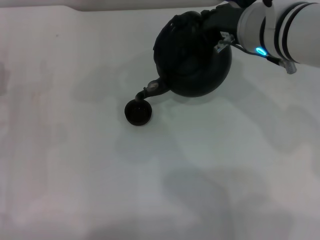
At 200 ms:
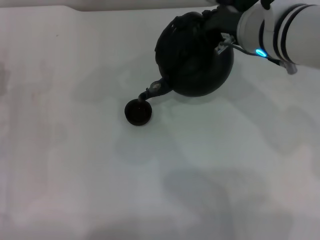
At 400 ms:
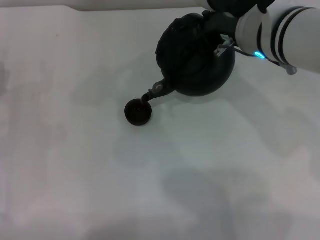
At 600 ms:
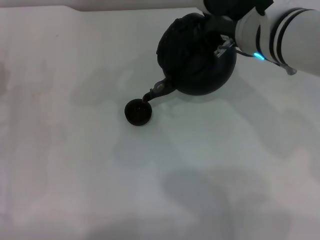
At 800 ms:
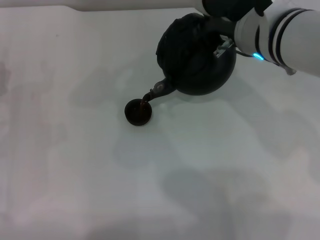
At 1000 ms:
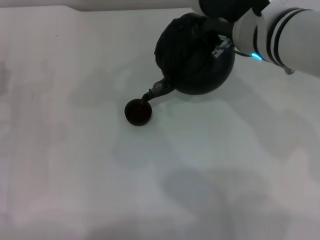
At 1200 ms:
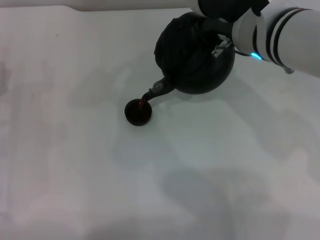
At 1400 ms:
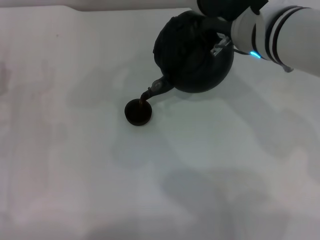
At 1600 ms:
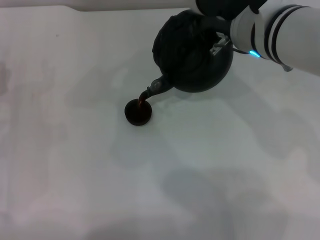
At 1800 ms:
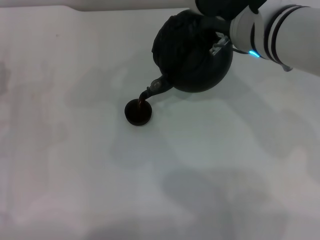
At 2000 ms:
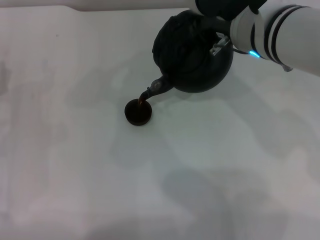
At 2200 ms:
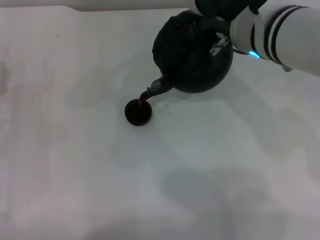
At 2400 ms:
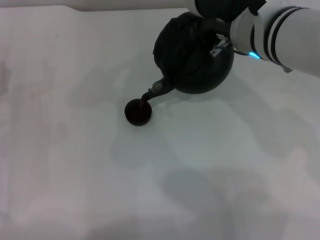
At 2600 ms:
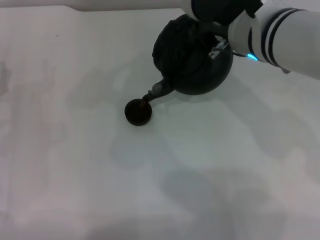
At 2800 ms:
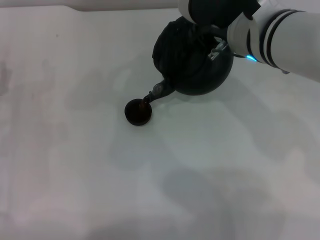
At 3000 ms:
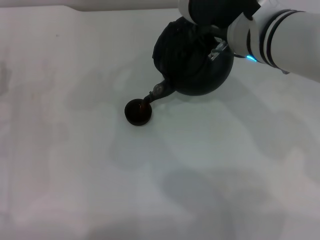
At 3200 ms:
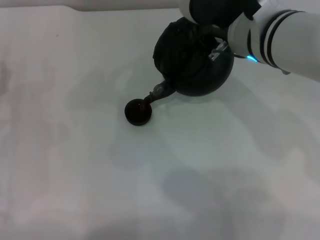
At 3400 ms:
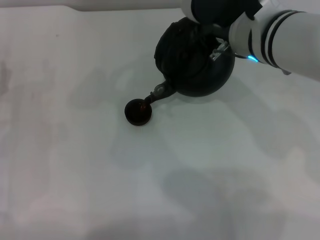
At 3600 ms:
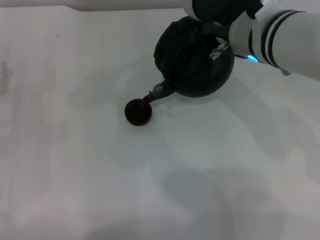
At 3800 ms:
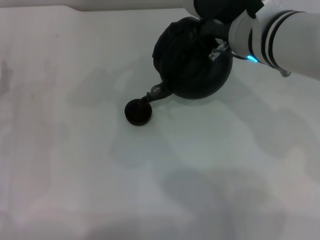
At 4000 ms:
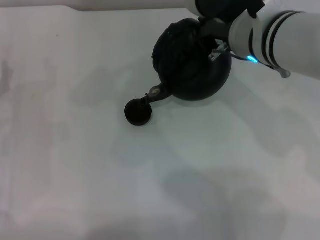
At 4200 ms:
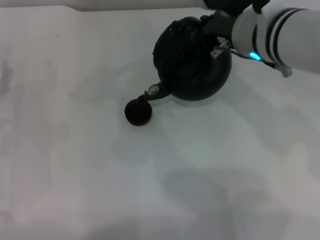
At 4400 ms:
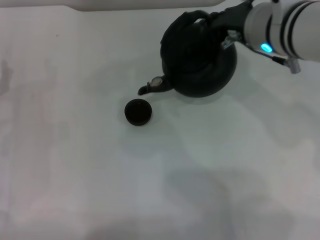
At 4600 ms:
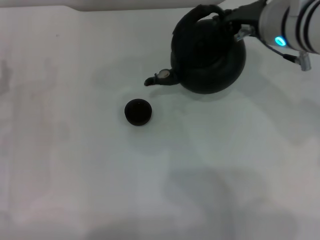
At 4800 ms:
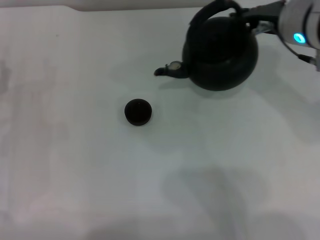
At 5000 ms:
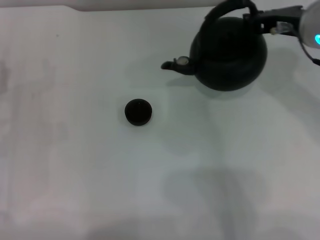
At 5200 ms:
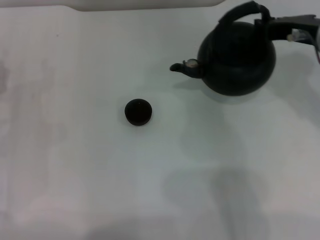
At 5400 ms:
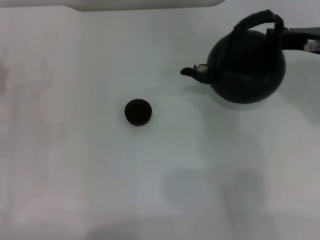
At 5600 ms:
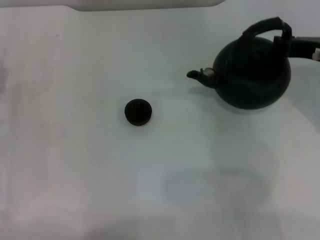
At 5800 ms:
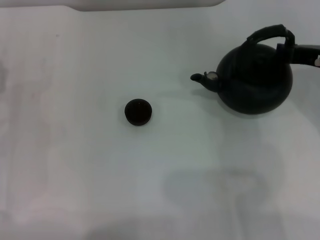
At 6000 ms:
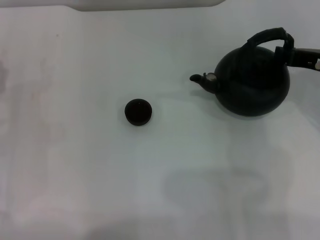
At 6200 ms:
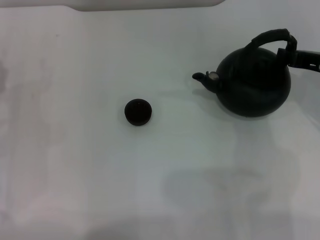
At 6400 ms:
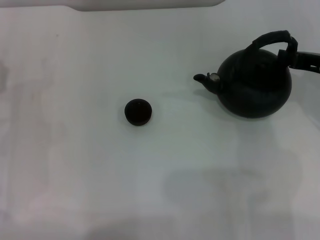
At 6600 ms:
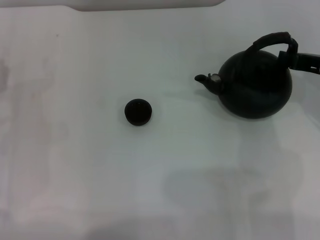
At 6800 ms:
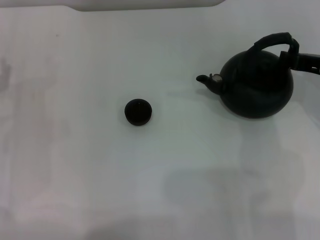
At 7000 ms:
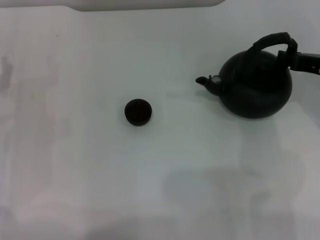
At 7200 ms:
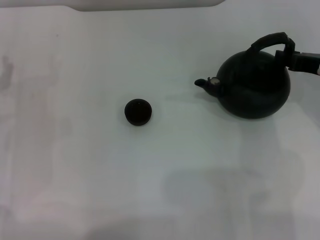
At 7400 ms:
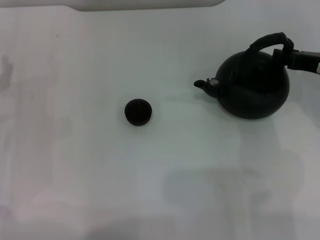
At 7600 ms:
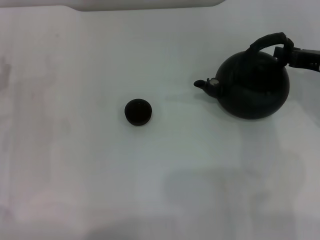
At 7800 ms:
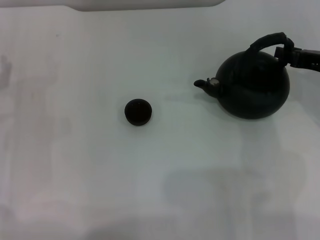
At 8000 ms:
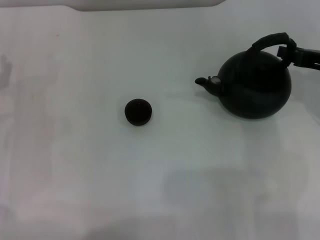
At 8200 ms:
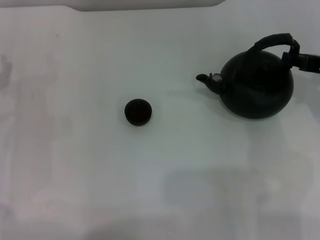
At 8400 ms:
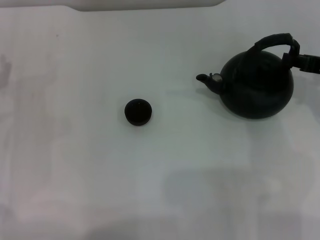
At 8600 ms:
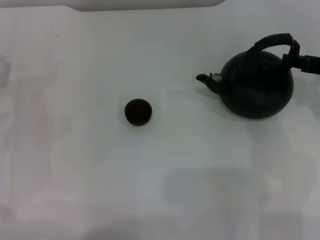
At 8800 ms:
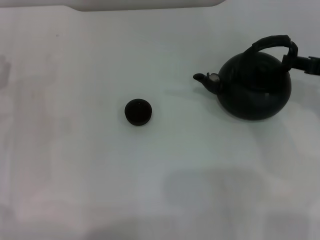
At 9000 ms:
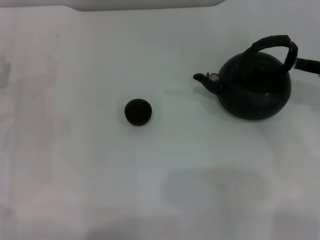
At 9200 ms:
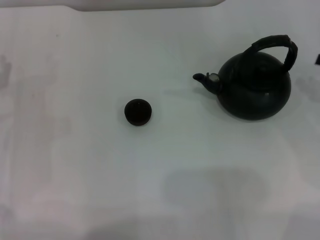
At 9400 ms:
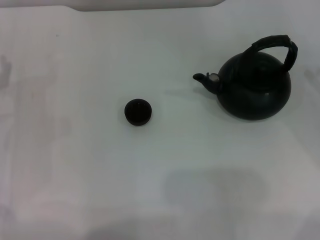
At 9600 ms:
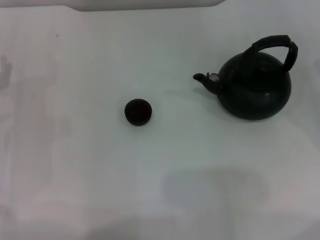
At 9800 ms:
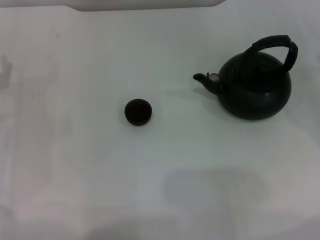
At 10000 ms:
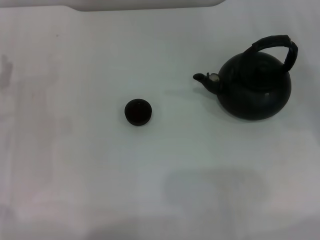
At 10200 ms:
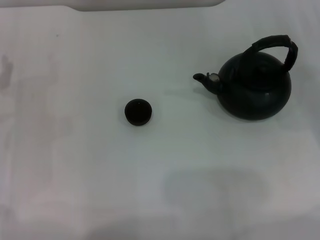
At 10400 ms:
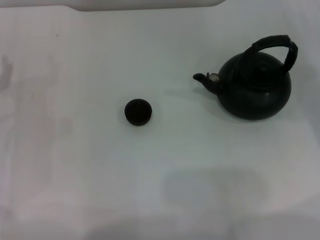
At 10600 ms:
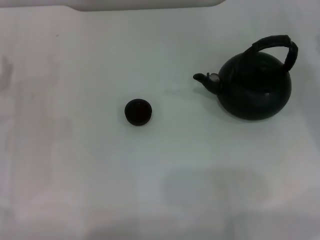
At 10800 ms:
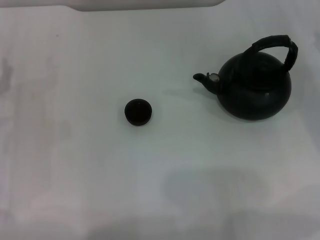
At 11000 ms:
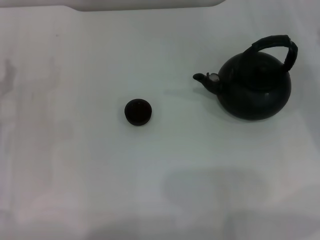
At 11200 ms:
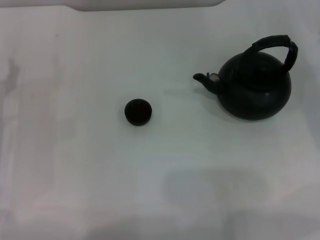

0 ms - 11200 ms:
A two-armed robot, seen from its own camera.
Task of the whole recording: Grasp the handle of the teapot with one hand and pour tea into the teacup.
Step, 0 ms - 4400 ms: Pour tea into the teacup with the right gripper.
Step, 4600 ms - 8800 ms: Put down the teapot with the right gripper.
0 ms - 1600 ms: The grippers make only small movements.
1600 ms - 3200 ms: Neither gripper changes place.
3200 ms - 4800 ms: The right gripper is displaced to the right by roughly 5 cm.
4800 ms - 6400 ms: The right gripper is displaced to the right and downward by about 10 cm.
6400 ms - 8000 ms: Both grippers stay put.
8000 ms - 9600 ms: The right gripper travels to the right by some 10 cm.

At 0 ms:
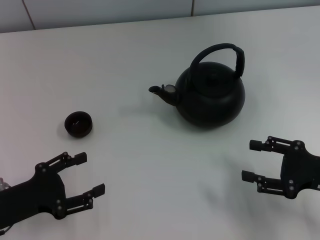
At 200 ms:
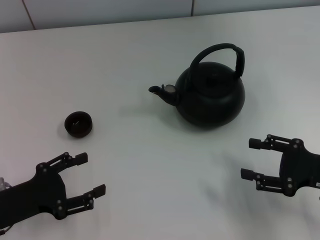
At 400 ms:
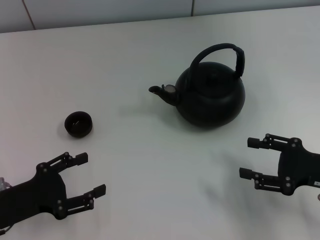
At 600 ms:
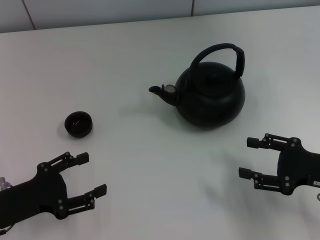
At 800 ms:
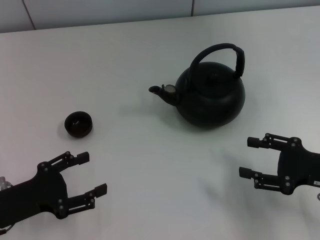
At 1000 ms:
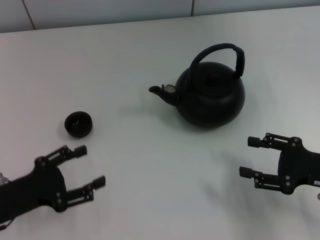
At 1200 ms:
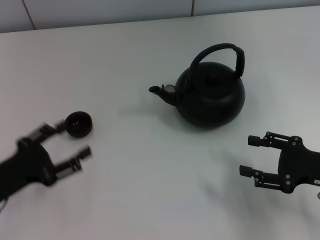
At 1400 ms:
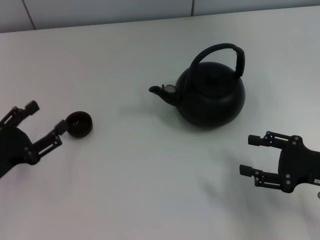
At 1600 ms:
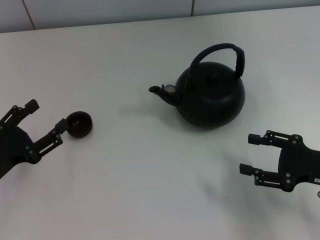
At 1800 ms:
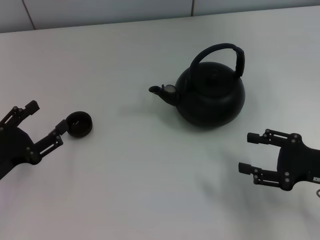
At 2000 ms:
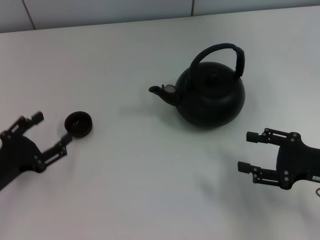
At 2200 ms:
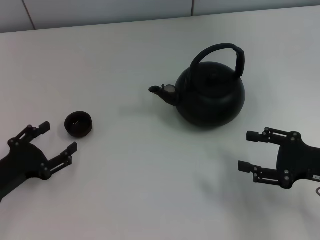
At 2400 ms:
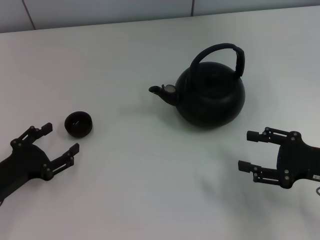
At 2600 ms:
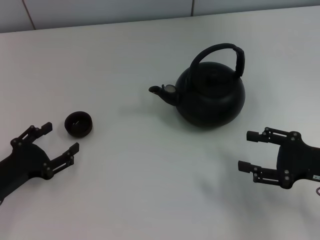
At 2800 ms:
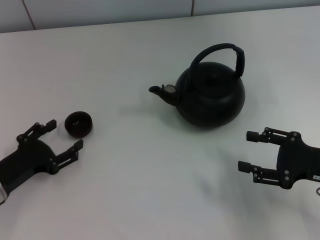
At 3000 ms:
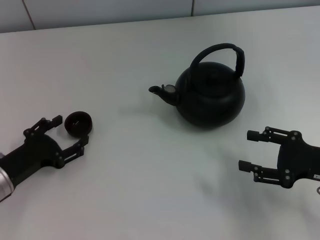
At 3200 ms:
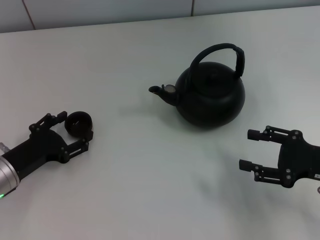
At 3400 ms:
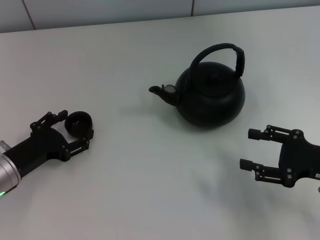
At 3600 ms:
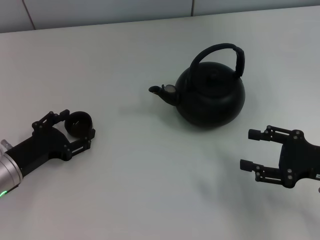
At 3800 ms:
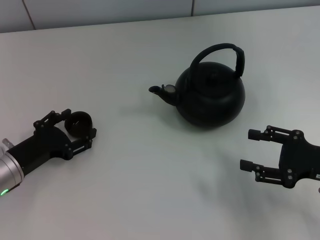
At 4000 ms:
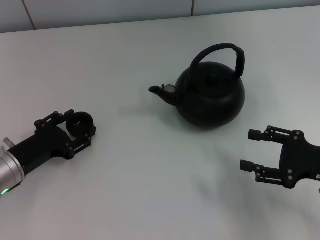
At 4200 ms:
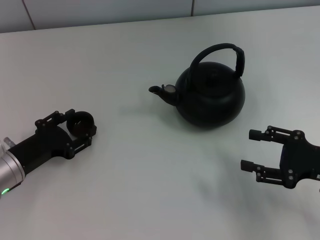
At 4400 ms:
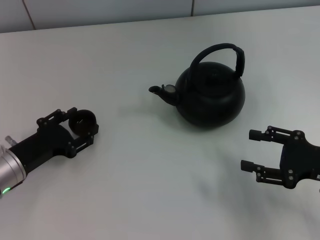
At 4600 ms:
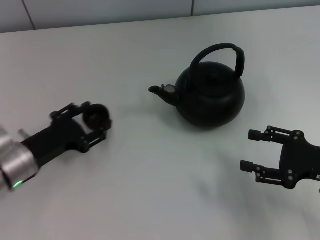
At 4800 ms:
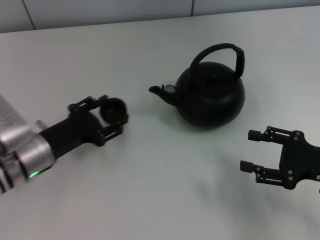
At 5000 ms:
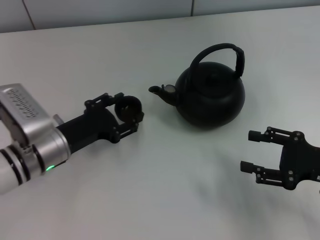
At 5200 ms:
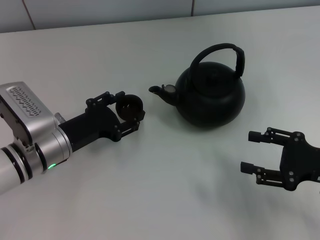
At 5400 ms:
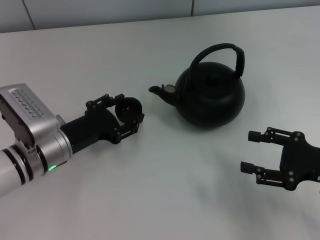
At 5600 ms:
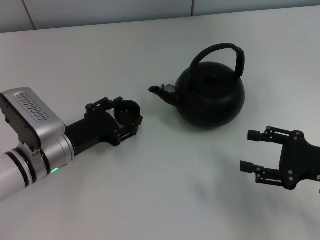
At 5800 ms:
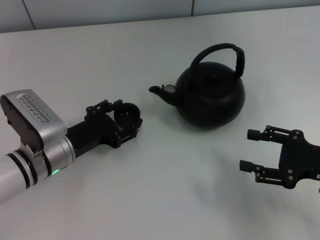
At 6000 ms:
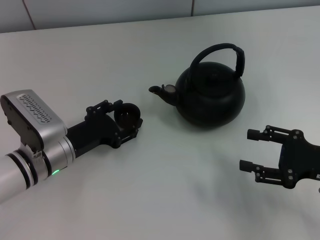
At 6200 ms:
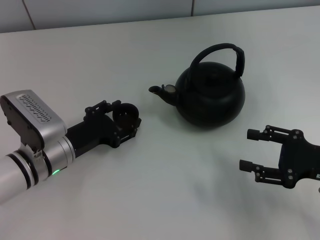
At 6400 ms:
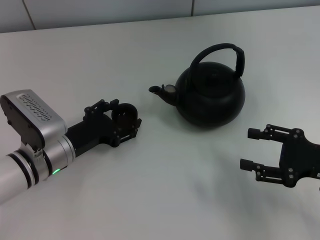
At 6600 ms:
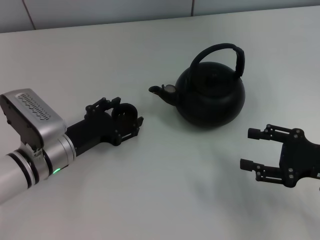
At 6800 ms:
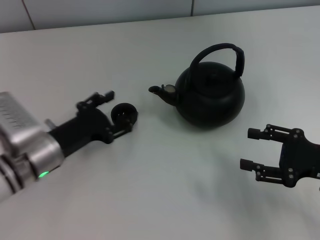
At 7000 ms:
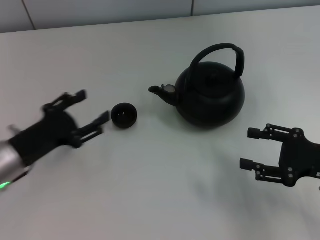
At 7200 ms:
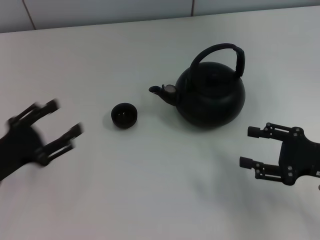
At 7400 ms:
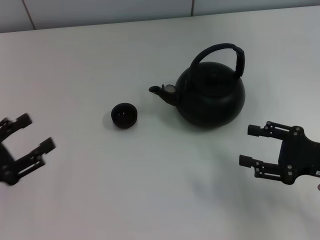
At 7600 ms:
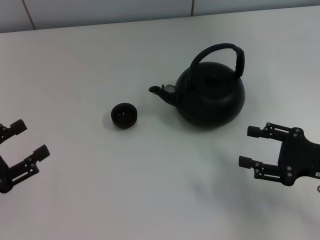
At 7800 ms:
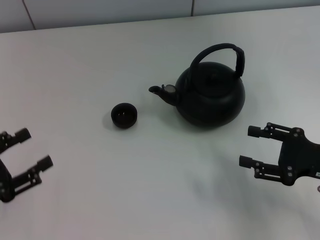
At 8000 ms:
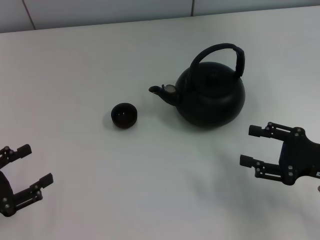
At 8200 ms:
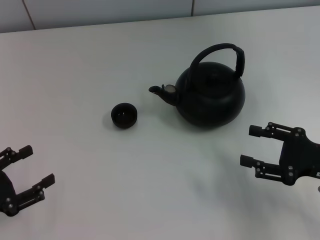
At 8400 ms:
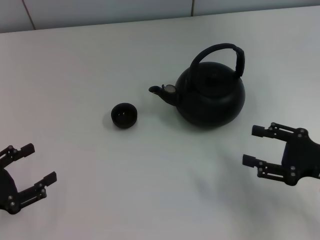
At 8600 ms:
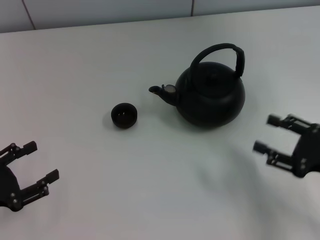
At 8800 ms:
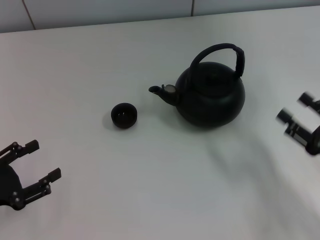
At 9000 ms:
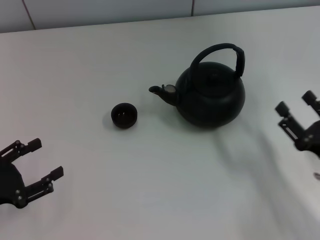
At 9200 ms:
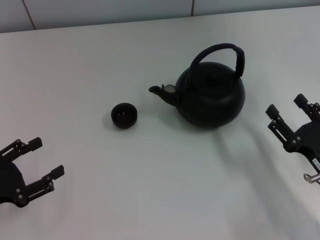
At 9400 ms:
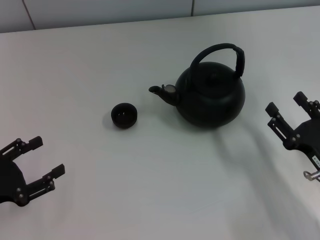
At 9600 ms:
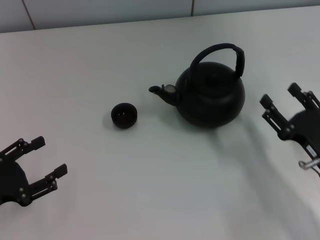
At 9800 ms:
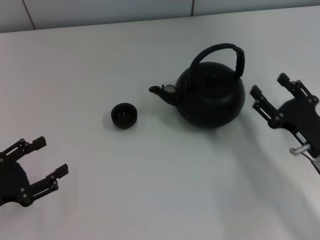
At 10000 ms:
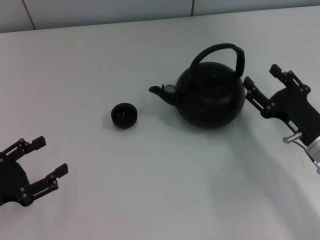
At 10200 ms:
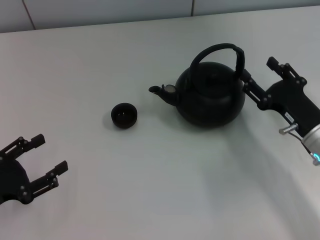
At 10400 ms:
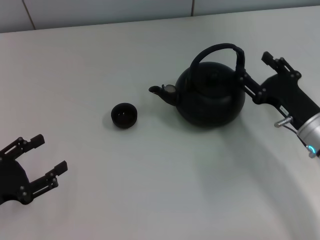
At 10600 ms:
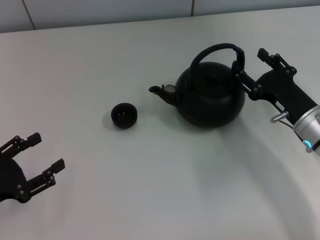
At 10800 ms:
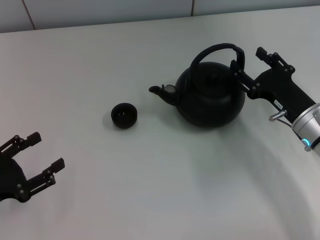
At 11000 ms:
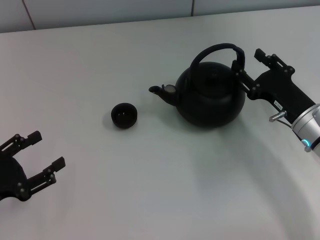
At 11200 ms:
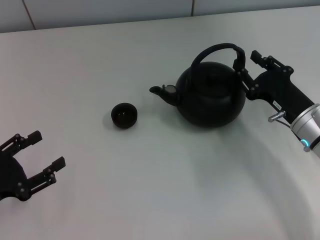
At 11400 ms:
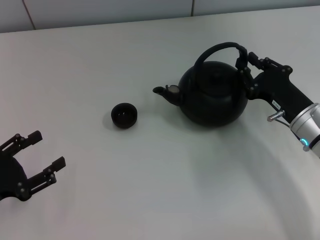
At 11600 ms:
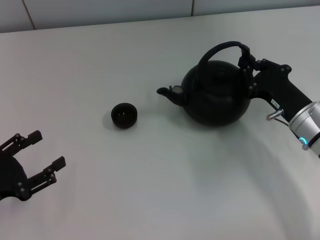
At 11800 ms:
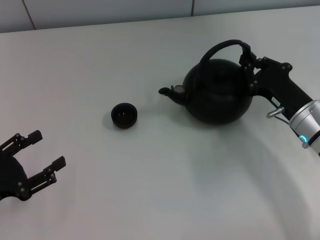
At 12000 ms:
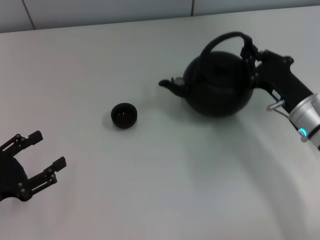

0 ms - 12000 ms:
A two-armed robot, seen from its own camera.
Task of the whole recording: Grasp the handle of the teapot with one hand and pour tea into the teacup.
Step, 0 ms - 4600 ms: Pick up the teacup with the left gripper.
Step, 4800 ms - 7000 ms: Place the teacup in the center of view with the left gripper.
1600 ms - 3000 ms: The grippers stay close to where they were, moving slightly.
3000 ms - 4400 ms: The left gripper closes up.
4400 ms - 6000 ms: The left gripper travels to the right by about 5 cm.
6000 ms - 7600 ms: The left gripper goes some 20 cm to the left and backward, and opens.
7600 ms - 9000 ms: The right gripper shifts by some 5 cm.
9000 ms - 10400 ms: The right gripper shifts some 10 cm forward.
10400 ms - 12000 ms: The right gripper closes up.
